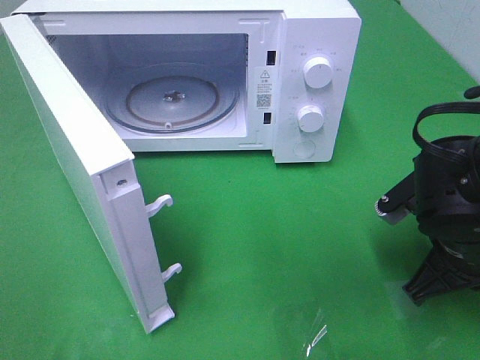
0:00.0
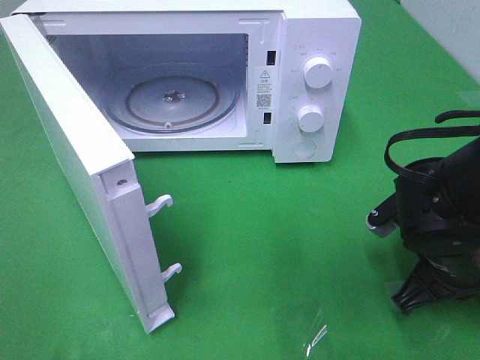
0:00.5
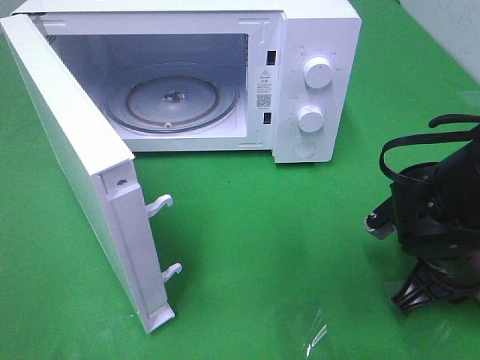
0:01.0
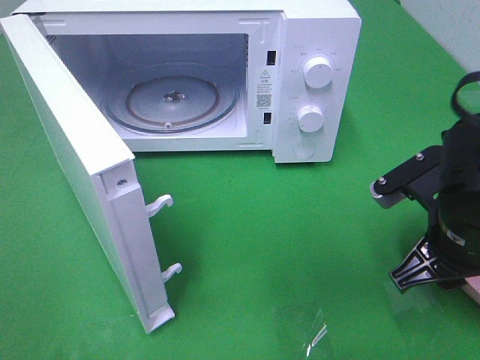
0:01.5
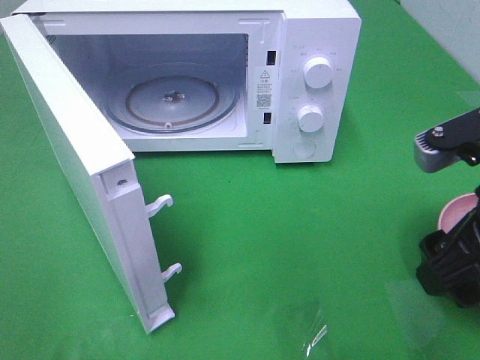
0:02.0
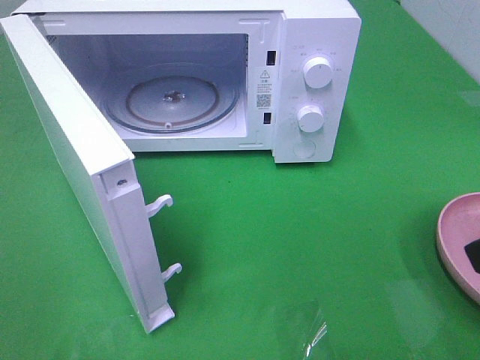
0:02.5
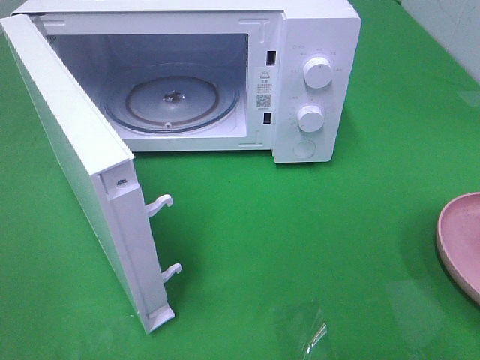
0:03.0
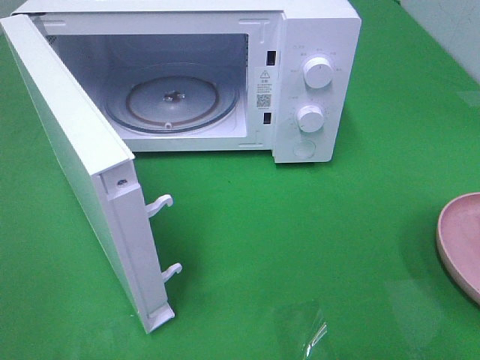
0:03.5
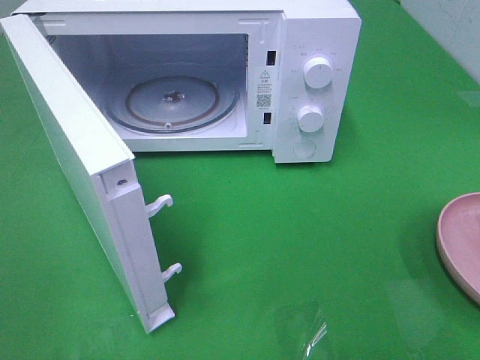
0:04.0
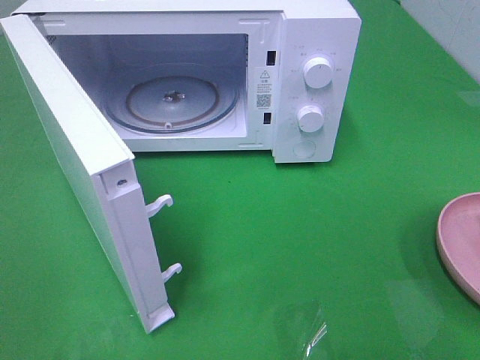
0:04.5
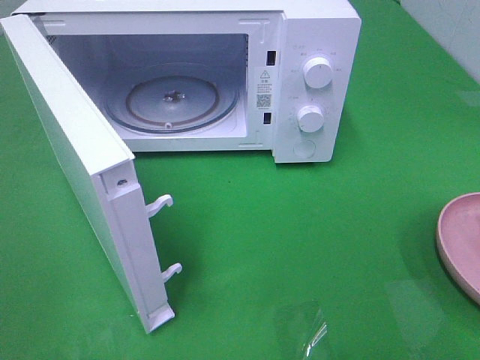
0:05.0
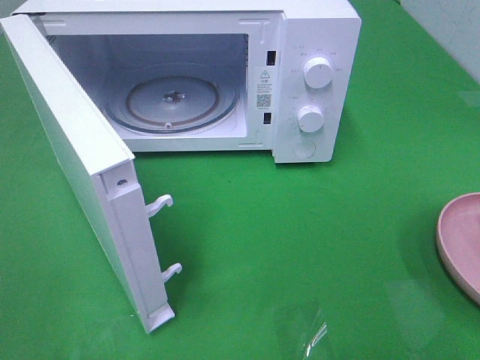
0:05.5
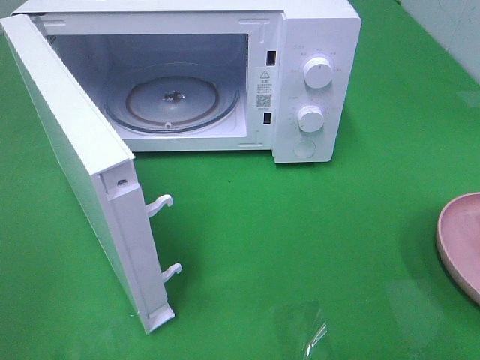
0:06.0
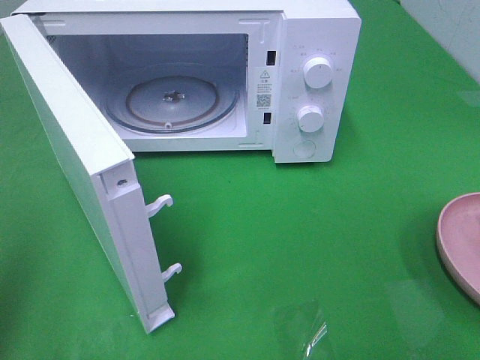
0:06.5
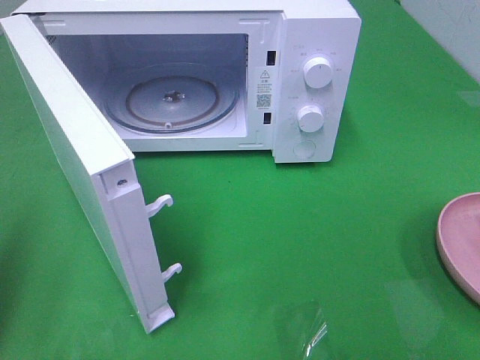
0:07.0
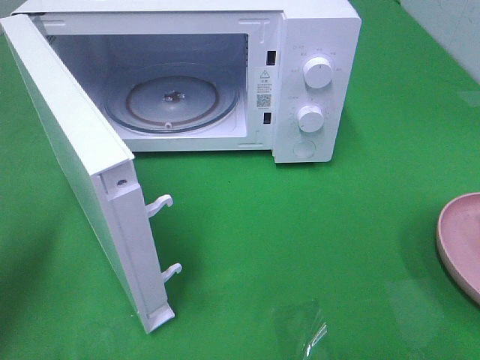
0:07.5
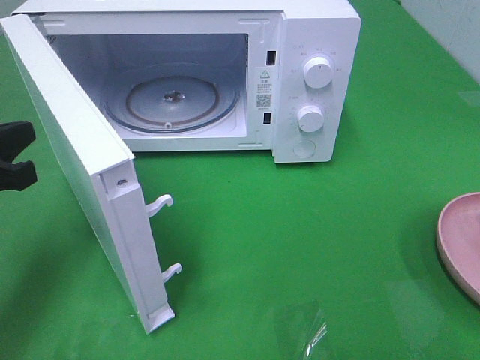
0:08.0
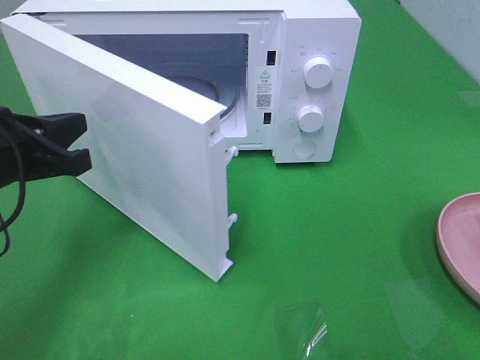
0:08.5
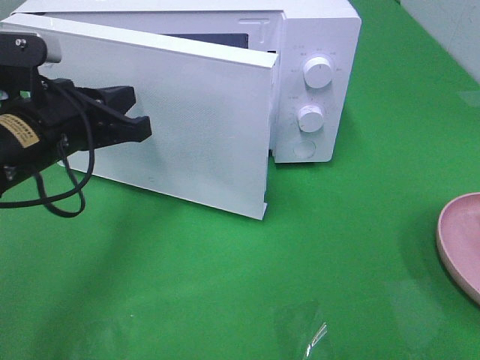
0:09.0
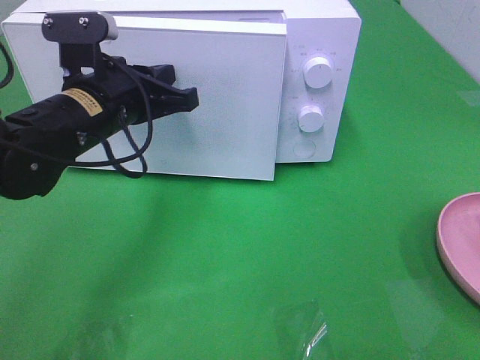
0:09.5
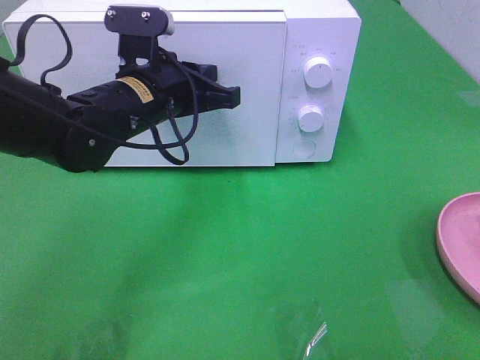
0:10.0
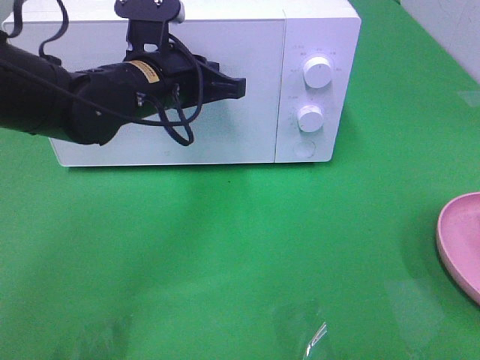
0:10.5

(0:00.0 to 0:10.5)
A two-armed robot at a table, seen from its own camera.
Task of the whole recording: Heat the burger.
0:00.0 - 0:02.0: The right gripper is displaced upward and backward by approximately 15 cm, and opens its fingers.
0:02.0 - 0:04.0: The right gripper moves backward and to the right, roughly 20 cm.
0:06.5 - 0:08.5: The left gripper shifts approximately 20 cm forward, downward and to the right.
0:08.5 - 0:10.5: The left gripper is displaced to the right and forward by some 15 cm.

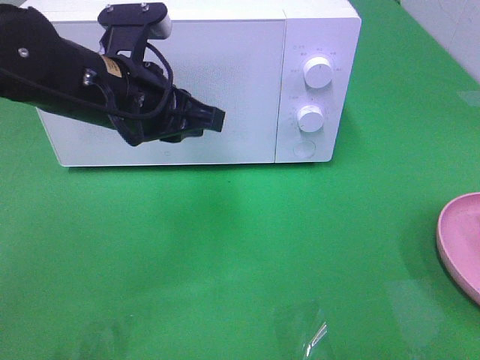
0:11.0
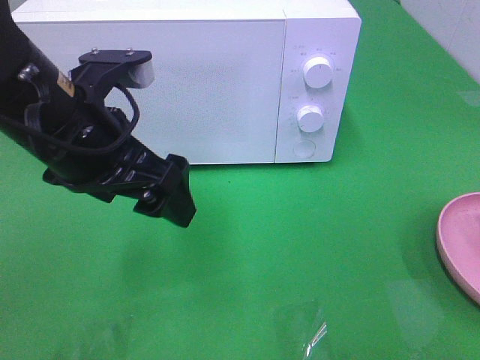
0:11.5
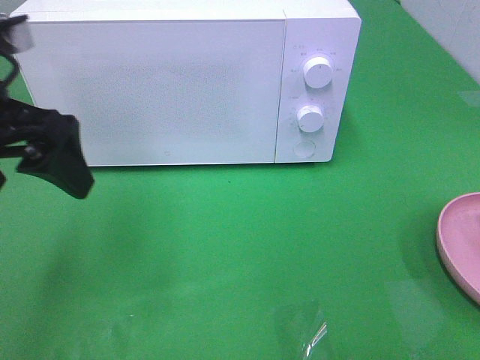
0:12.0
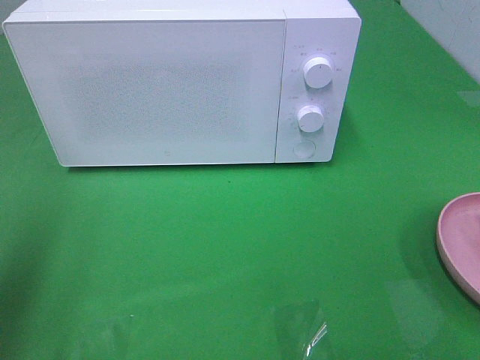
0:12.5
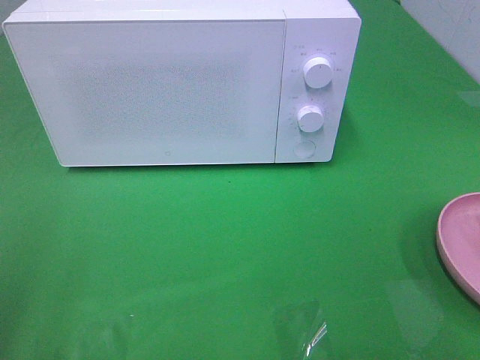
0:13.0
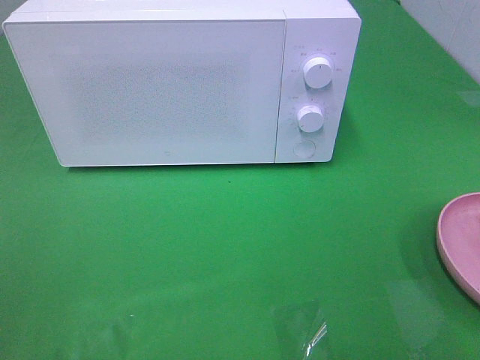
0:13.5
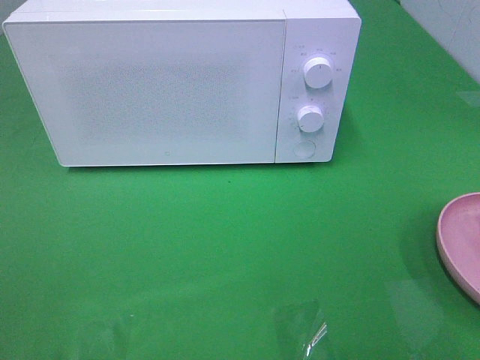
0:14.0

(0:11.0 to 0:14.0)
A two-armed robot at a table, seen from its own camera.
Task of the whole recording: Heat the burger.
0:11.0 - 0:12.5: The left gripper travels to the left and backward by about 25 cm, and opens.
0:12.5 - 0:14.0: The left gripper travels backward by roughly 15 cm.

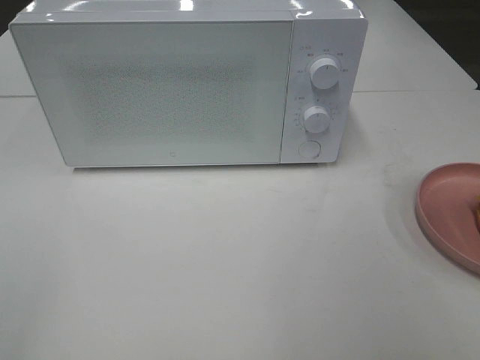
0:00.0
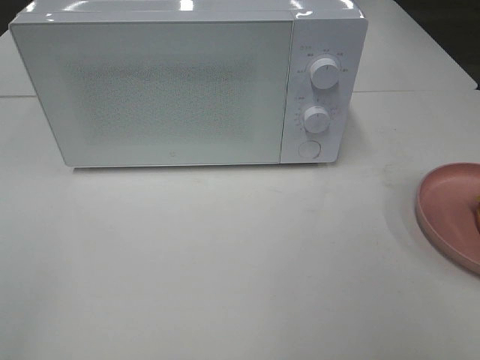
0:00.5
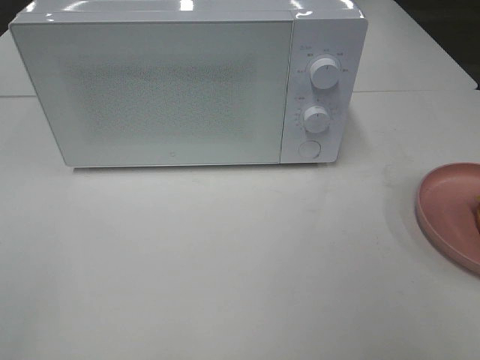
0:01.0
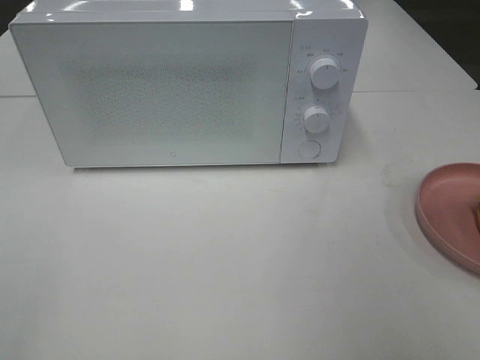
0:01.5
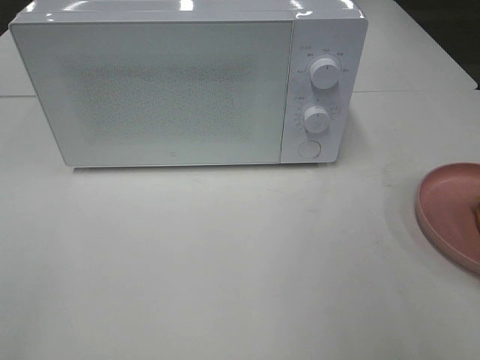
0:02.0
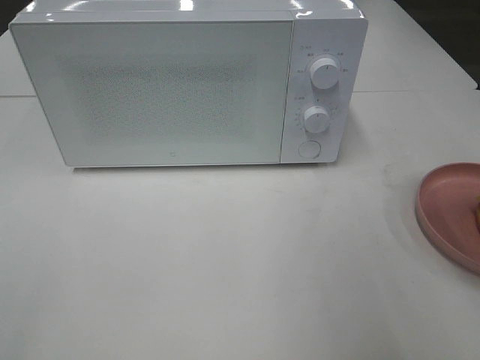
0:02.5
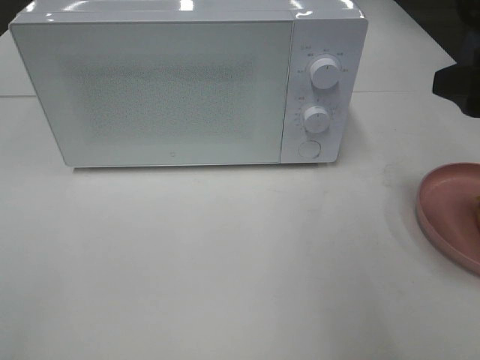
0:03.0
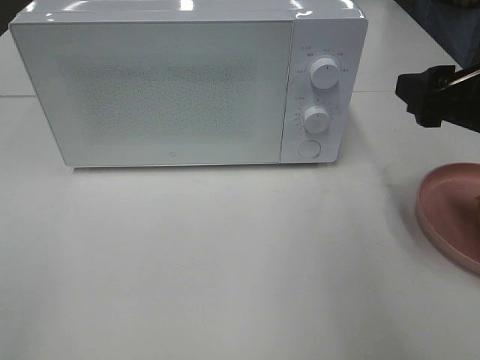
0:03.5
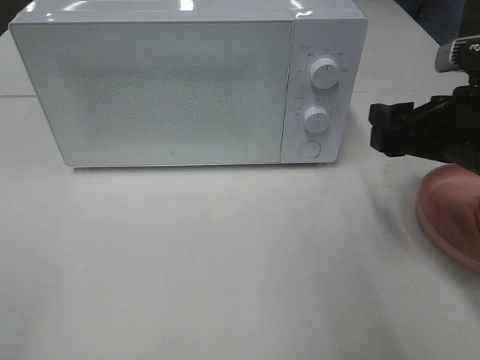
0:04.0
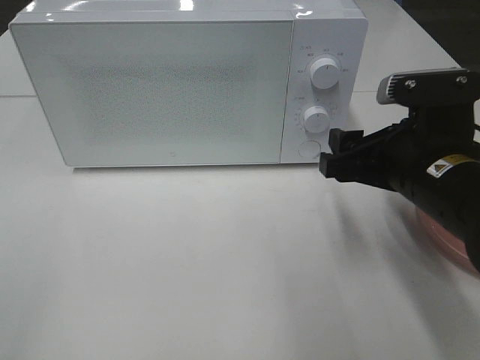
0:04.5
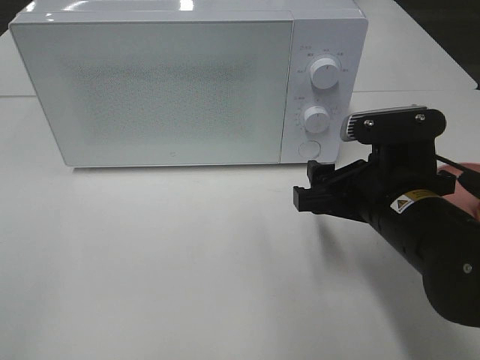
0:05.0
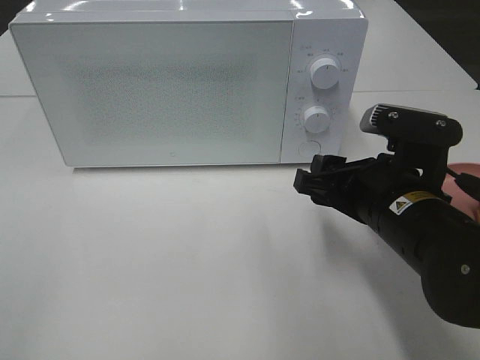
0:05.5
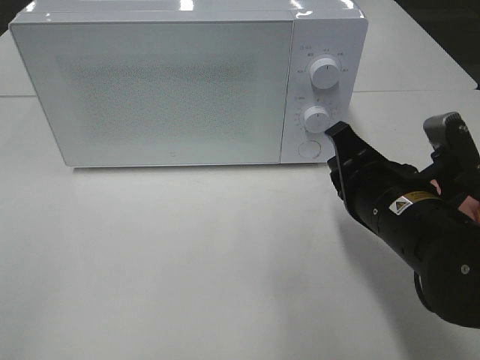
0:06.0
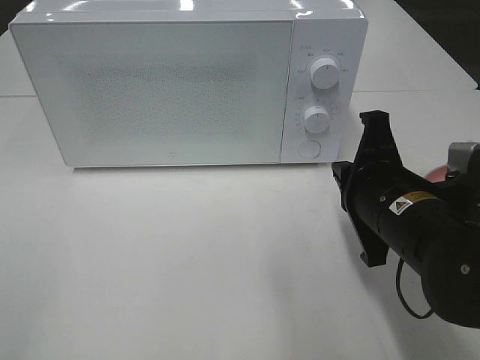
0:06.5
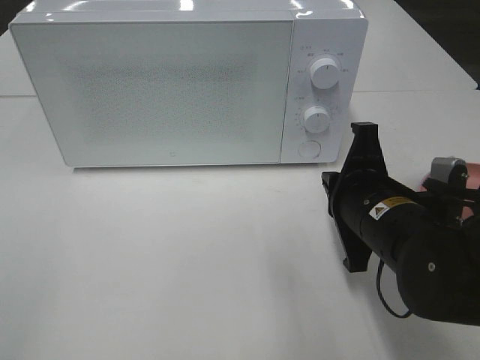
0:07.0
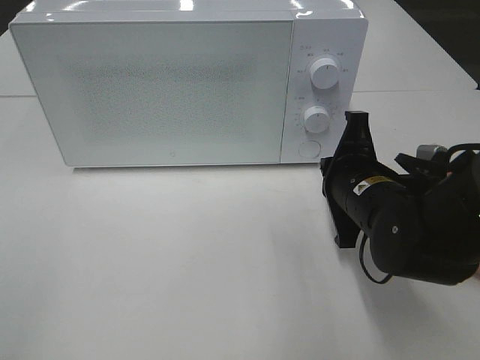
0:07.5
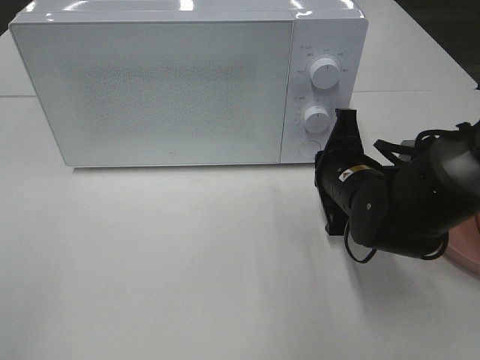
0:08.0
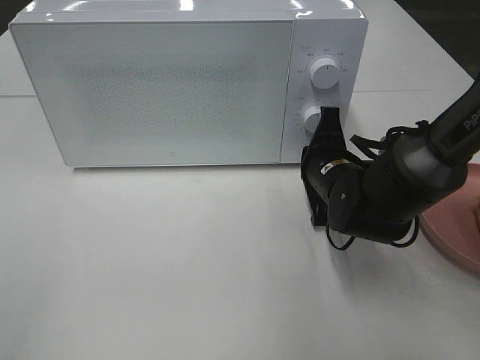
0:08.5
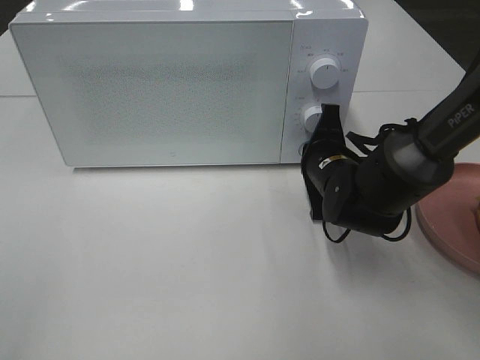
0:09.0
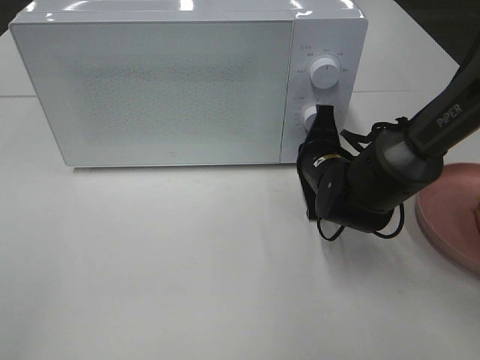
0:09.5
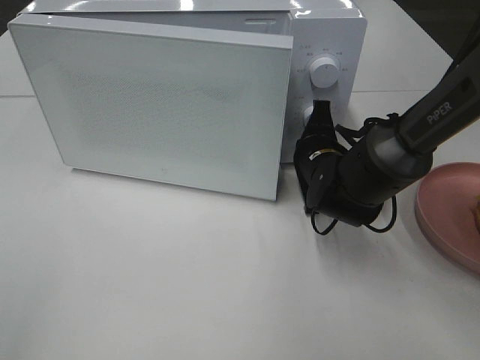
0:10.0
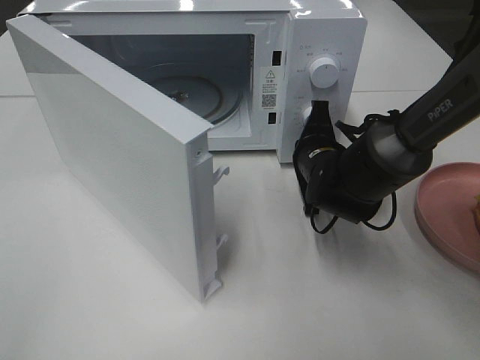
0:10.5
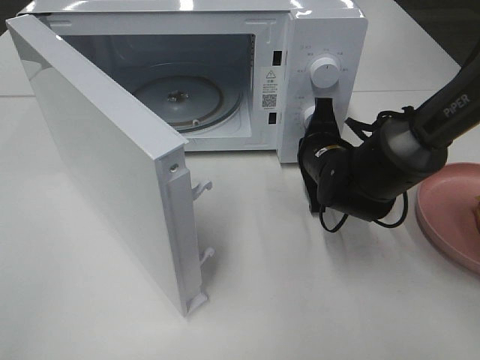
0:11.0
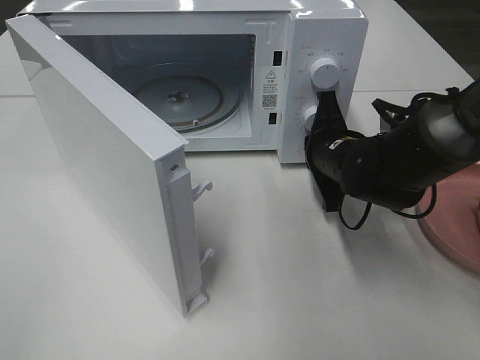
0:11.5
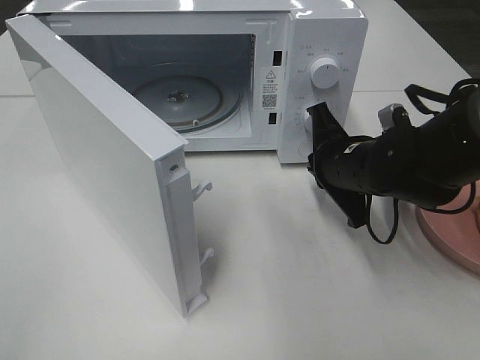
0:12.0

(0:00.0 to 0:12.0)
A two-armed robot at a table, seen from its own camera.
Task of the whole recording: Heat the burger.
Step, 0:00.0 - 0:11.5: Right hand: press the switch.
0:02.0 - 0:04.0: The right gripper goes about 15 cm forward and downward.
0:04.0 - 0:06.0: The right gripper heads to the left and downward, covering approximately 10 cm, and closes up.
0:06.0 - 0:08.0: The right gripper goes roughly 10 cm forward.
0:08.0 - 0:10.0: The right gripper is displaced forward by approximately 5 cm.
0:10.0 - 0:12.0: The right gripper moves about 5 cm.
